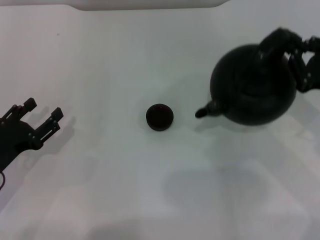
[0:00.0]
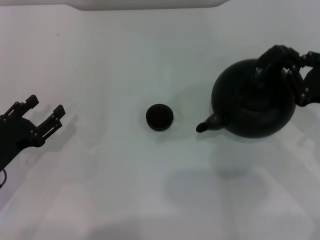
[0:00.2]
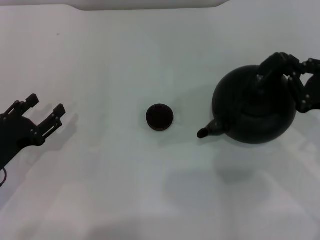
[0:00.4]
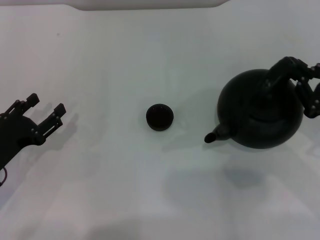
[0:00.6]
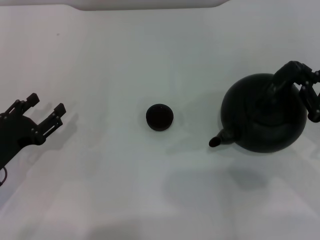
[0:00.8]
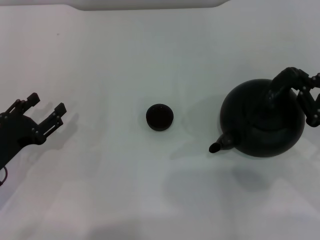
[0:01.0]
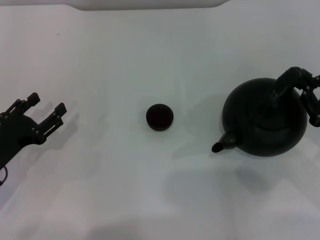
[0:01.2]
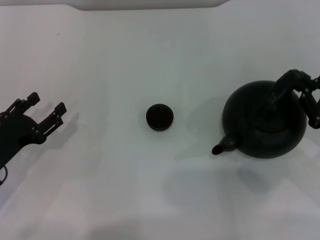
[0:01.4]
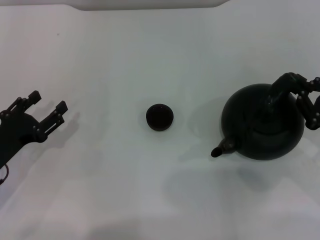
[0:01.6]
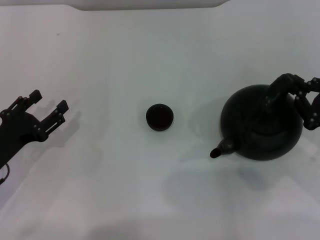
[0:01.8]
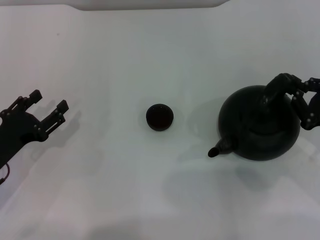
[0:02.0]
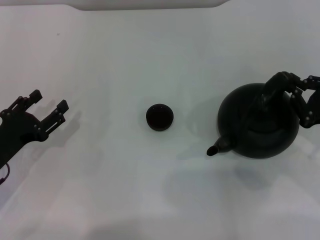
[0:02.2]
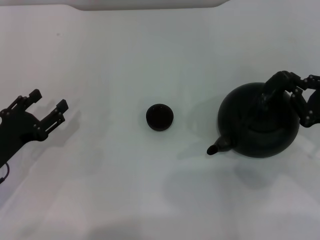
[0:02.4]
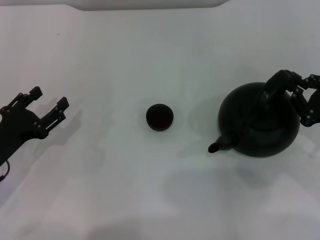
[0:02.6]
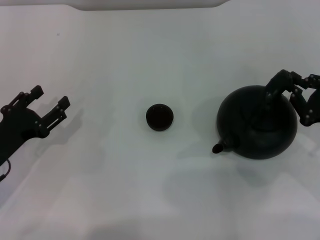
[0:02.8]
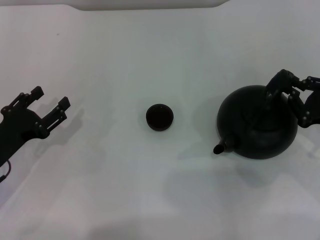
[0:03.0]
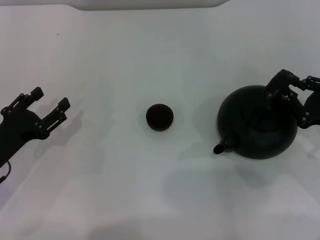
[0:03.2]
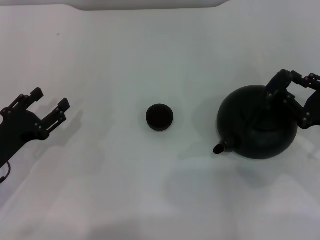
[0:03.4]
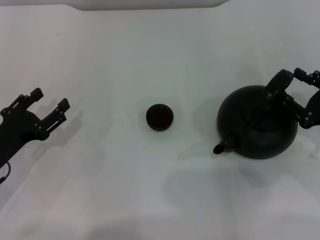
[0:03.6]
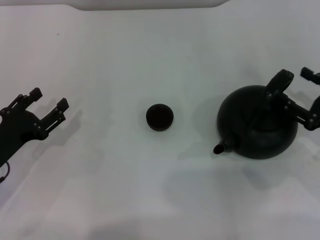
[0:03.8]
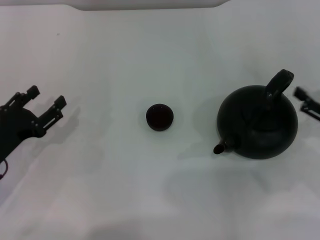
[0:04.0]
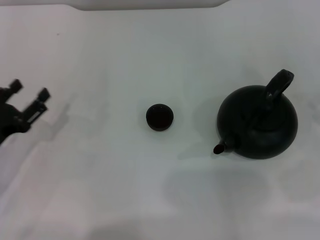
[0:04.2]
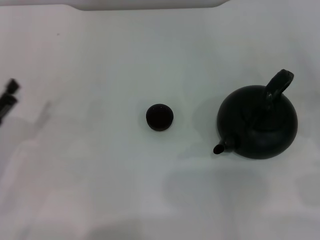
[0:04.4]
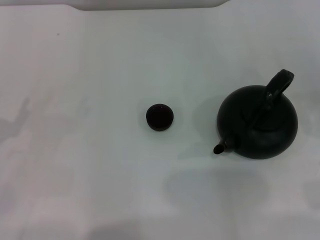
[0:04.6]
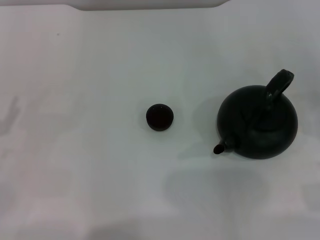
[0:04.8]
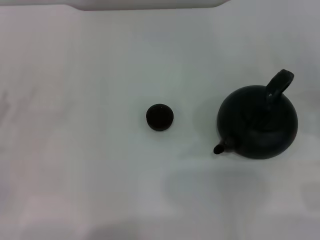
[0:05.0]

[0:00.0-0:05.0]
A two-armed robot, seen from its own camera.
Task of the whole recording: Grasp the handle of the teapot with one hand and pour tea into the teacup.
Step, 0:00.0 to 0:03.6: Put down the teapot with the right gripper.
0:00.0 to 0:01.6: The right gripper shifts by some 5 cm.
0:01.6 to 0:03.4: There are only small adjustments of the grippers.
0:03.4 to 0:05.0: The left gripper shifts about 10 cm to the left. The right gripper shifts about 10 cm to the right and backward, and opens up.
